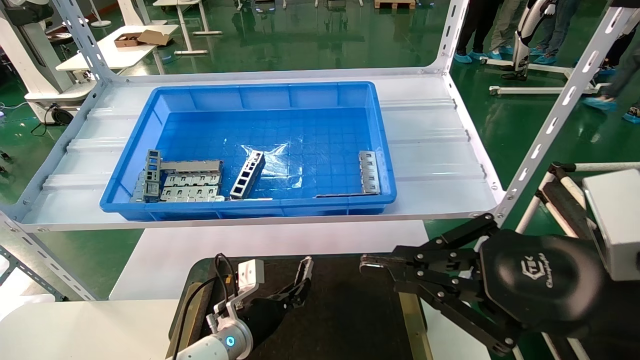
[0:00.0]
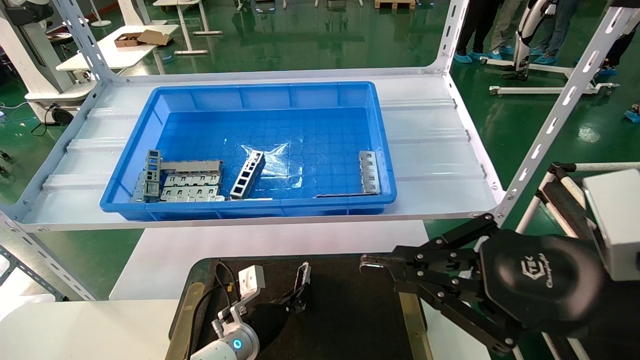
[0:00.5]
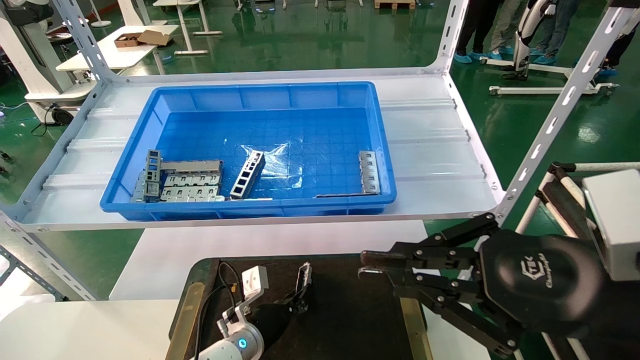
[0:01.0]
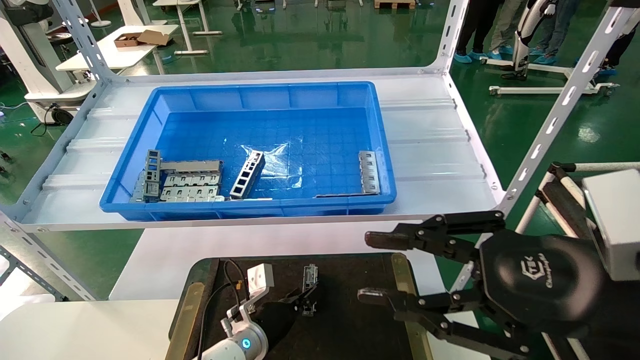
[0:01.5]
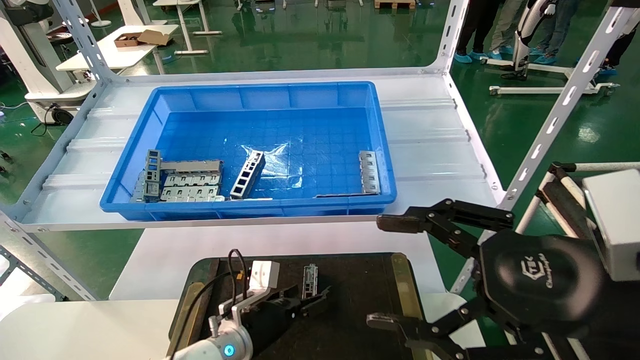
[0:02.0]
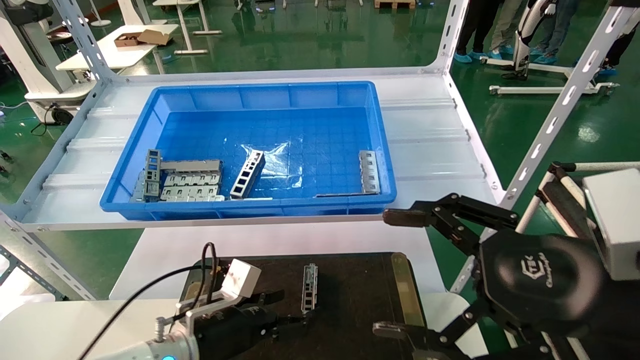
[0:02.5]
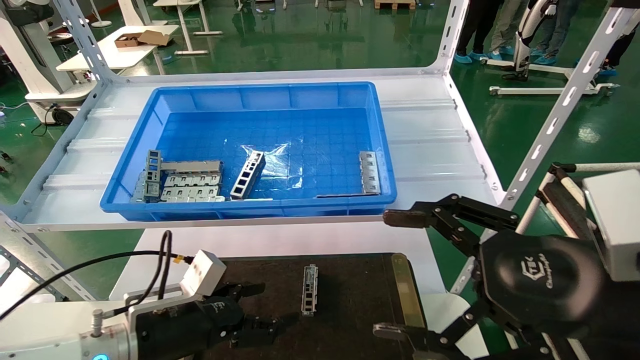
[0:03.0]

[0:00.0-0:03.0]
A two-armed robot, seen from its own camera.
Task of the whole recording: Grasp the part with one hand and place it on the black container.
0:00.0 to 0:01.5: The grippers stay close to where they were, moving slightly.
0:01.5 to 0:03.0: The right gripper opens its fingers, while the left gripper travels upward, backward and to the left by some 20 cm, and opens up.
